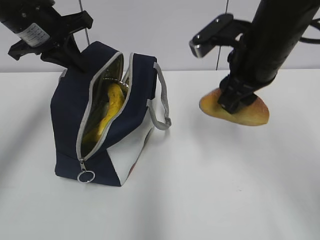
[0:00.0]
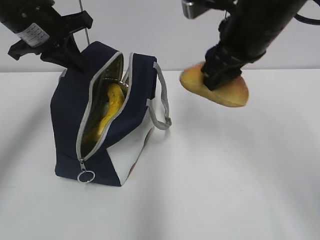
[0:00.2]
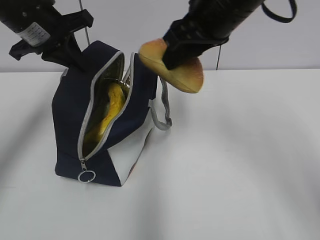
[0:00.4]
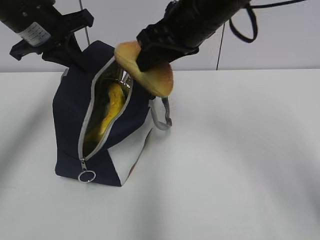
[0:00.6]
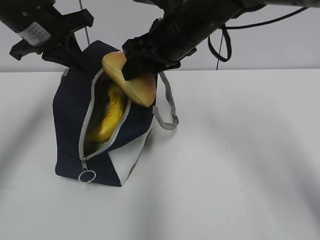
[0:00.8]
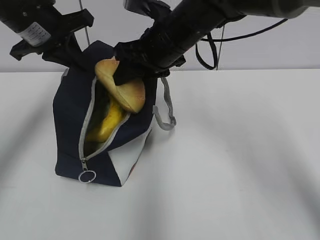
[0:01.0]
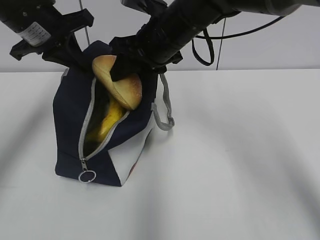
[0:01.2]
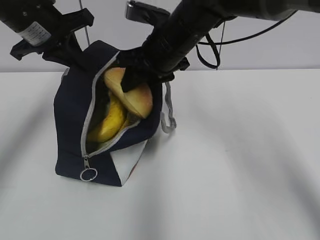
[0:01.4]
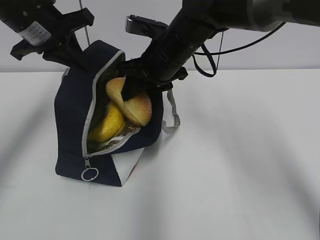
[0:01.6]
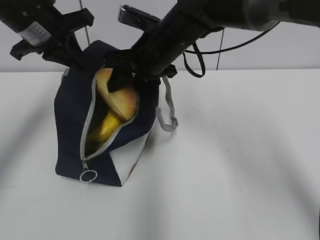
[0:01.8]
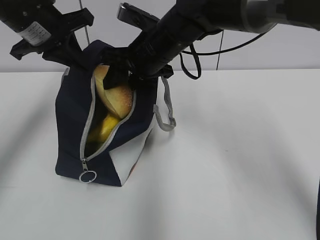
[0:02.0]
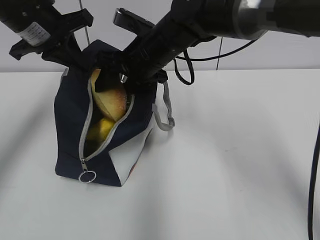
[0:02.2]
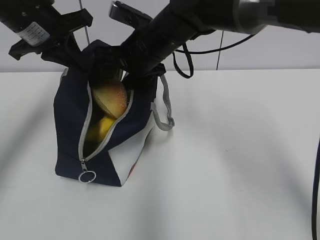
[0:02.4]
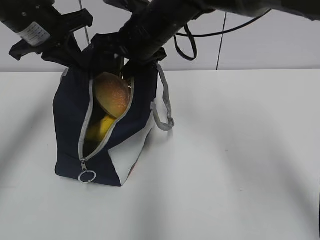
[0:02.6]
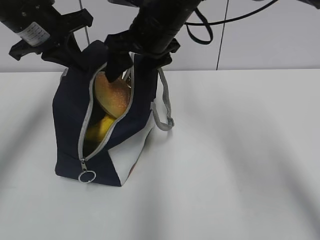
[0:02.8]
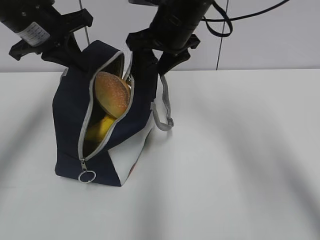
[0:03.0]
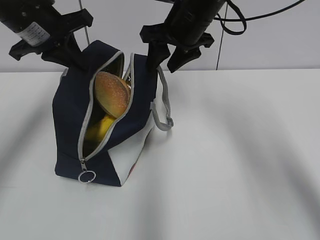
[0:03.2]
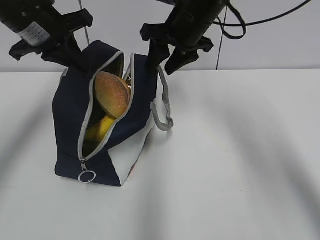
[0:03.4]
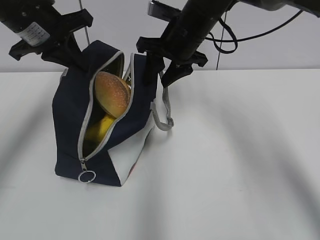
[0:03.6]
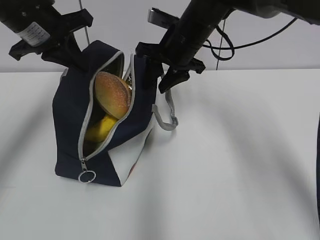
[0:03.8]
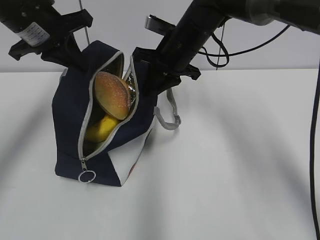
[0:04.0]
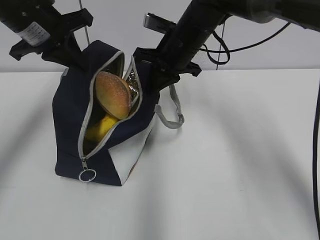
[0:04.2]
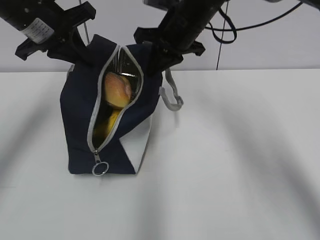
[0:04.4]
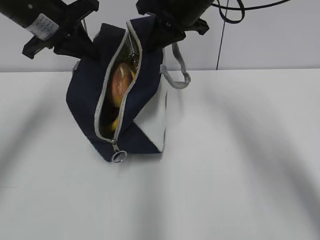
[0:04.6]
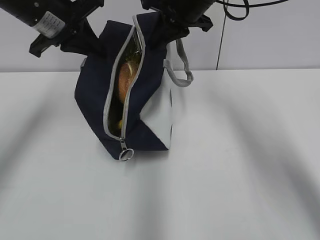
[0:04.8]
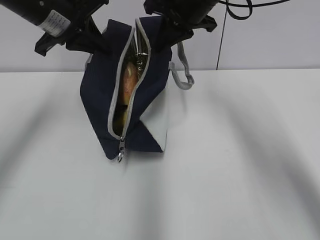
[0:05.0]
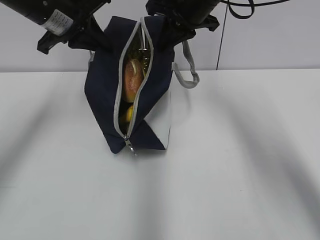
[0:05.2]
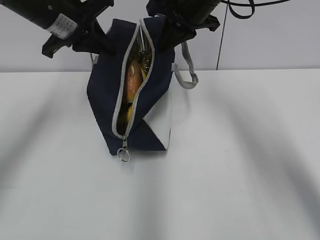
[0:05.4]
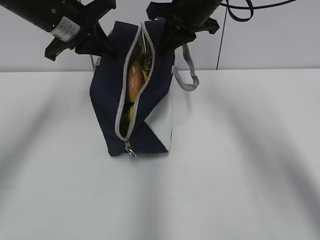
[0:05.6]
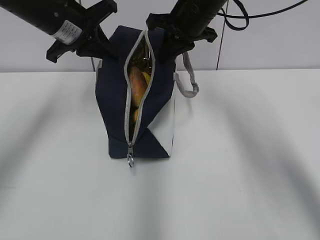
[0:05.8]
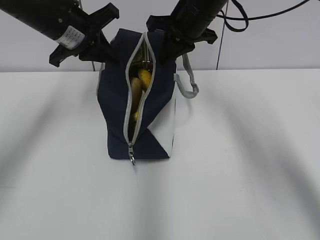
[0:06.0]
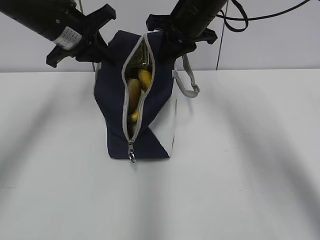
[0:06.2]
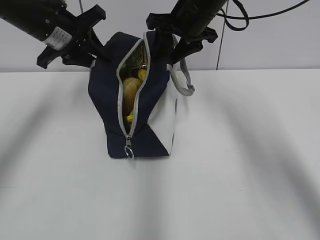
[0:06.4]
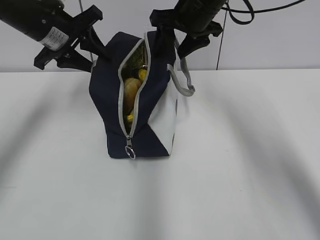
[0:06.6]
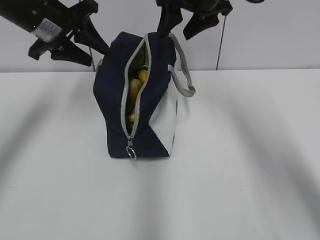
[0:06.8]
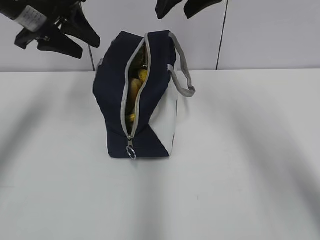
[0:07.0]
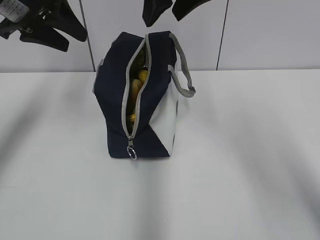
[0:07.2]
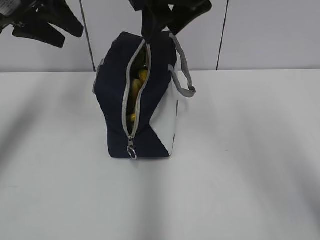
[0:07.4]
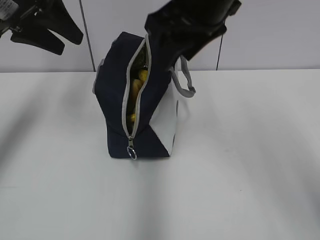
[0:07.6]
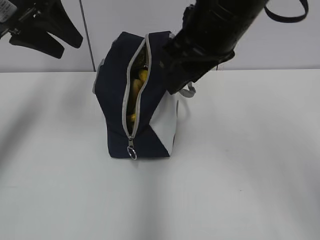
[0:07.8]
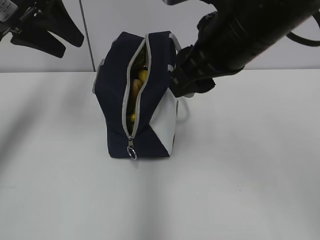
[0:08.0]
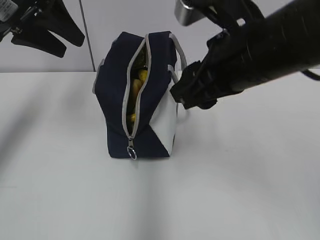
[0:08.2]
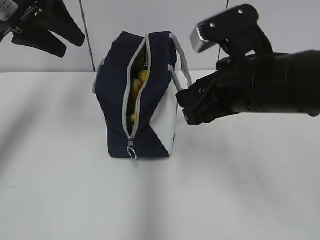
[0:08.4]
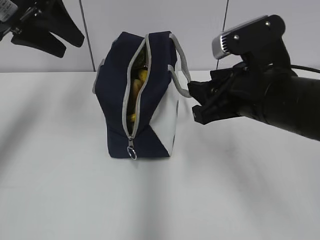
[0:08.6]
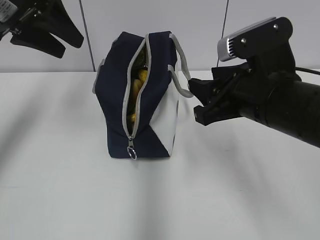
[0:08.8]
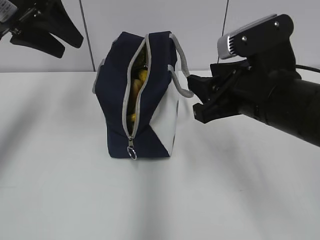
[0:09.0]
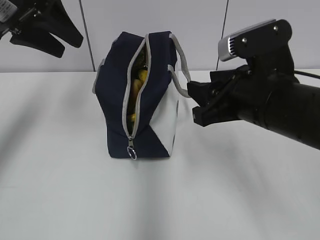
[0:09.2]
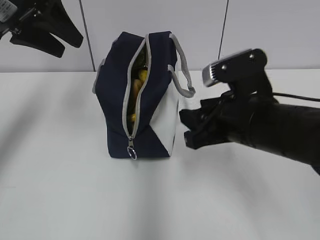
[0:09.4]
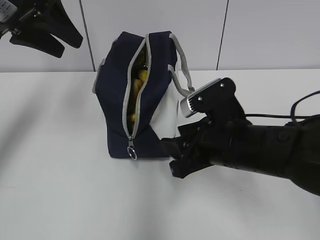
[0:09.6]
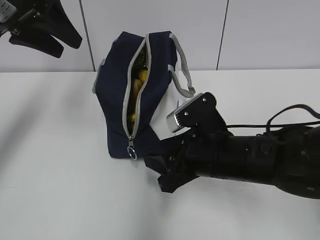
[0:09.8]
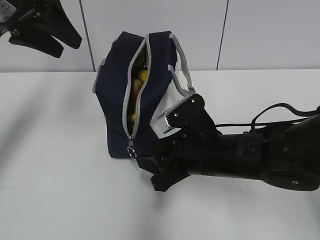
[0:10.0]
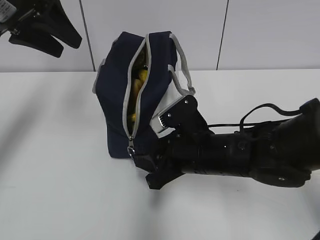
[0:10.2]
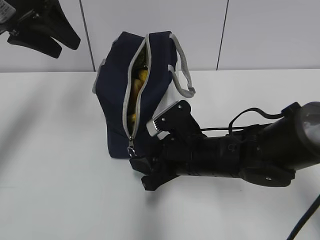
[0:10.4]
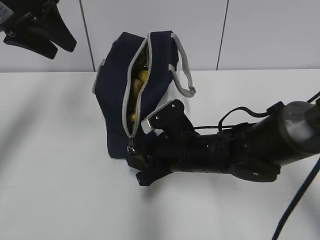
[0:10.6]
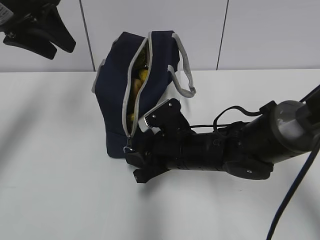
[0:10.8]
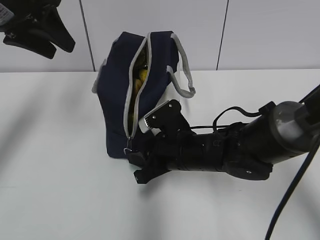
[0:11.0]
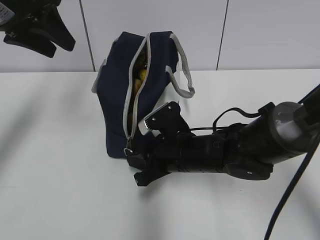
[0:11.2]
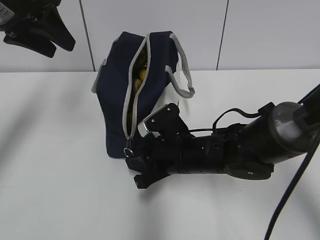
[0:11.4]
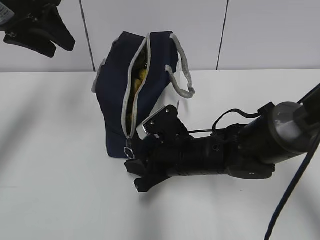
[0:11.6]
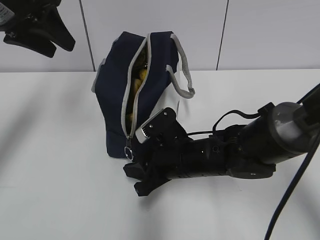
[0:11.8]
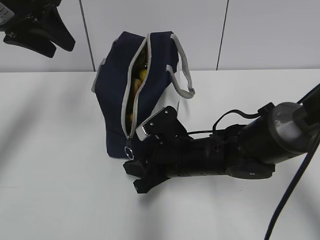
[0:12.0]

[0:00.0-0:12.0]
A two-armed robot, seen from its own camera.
0:00.0 to 0:01.6: The right gripper goes approximately 15 cm to the left and forward.
0:01.6 to 0:03.0: The right gripper moves upward, approximately 5 cm.
0:03.0 to 0:04.4: The right gripper closes up.
0:06.0 to 0:07.6: The right gripper travels backward and upward by about 15 cm, and opens. The left gripper goes approximately 10 cm upward, backward and to the left, and opens up.
0:07.6 to 0:09.0: The right gripper shifts roughly 15 cm downward, backward and to the right.
0:09.0 to 0:10.4: The right gripper goes approximately 15 cm downward and to the left.
0:10.4 to 0:12.0: The grippers make only small movements.

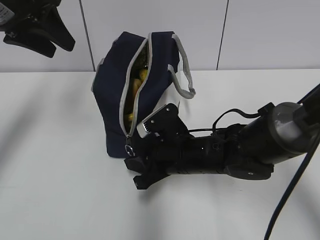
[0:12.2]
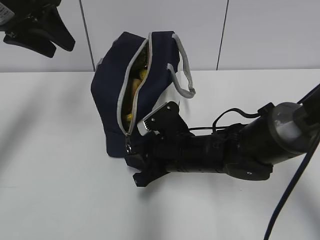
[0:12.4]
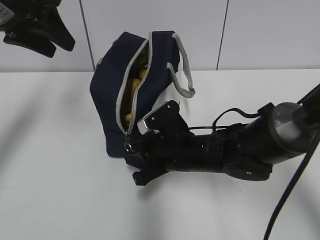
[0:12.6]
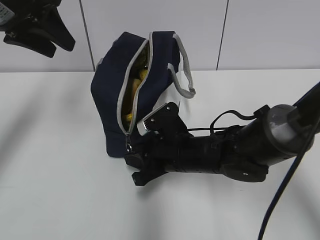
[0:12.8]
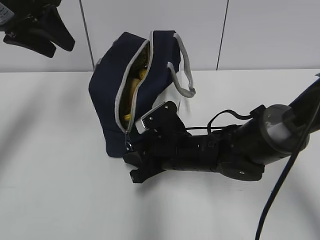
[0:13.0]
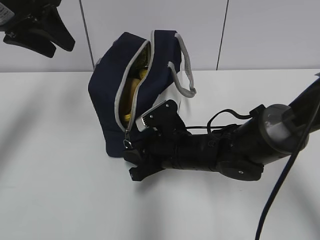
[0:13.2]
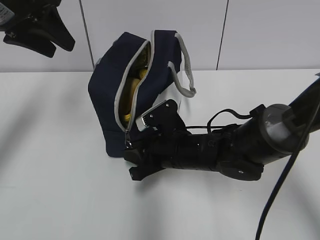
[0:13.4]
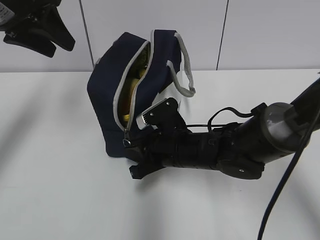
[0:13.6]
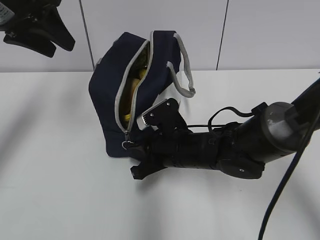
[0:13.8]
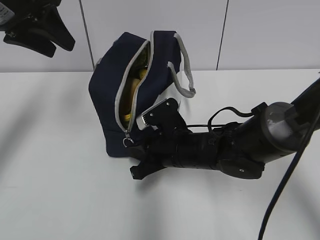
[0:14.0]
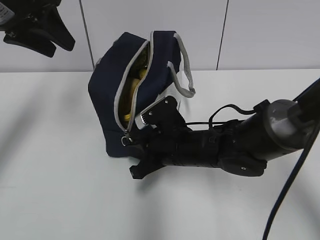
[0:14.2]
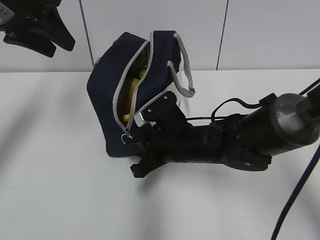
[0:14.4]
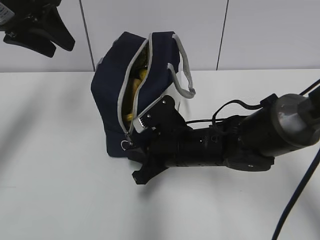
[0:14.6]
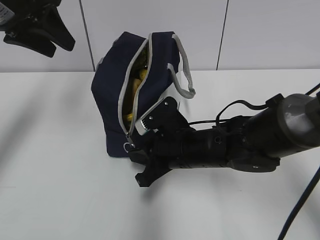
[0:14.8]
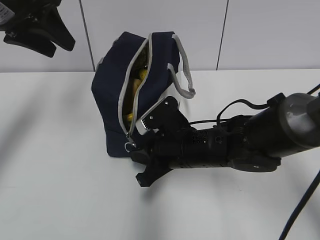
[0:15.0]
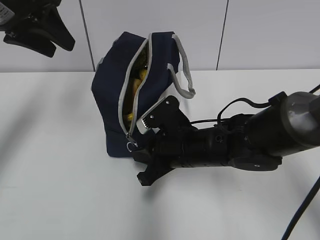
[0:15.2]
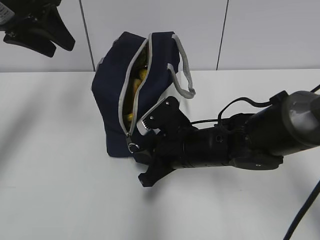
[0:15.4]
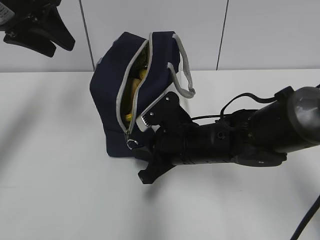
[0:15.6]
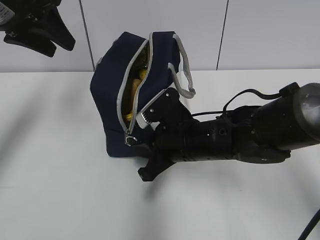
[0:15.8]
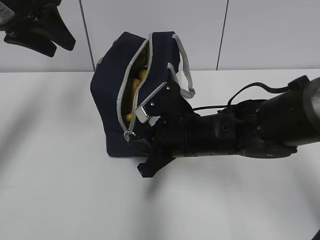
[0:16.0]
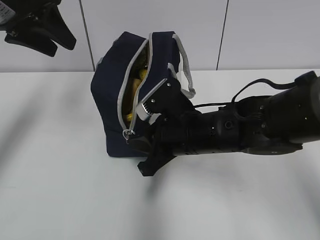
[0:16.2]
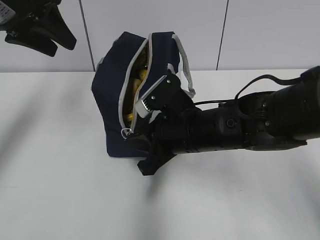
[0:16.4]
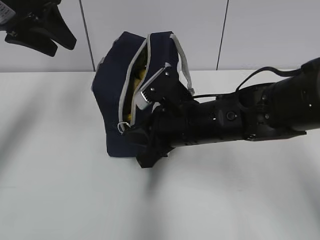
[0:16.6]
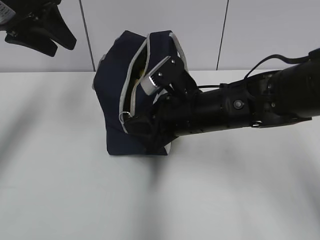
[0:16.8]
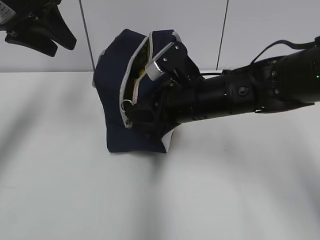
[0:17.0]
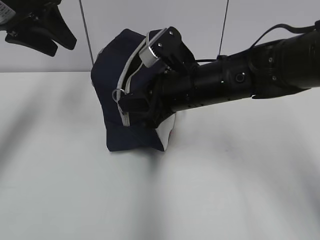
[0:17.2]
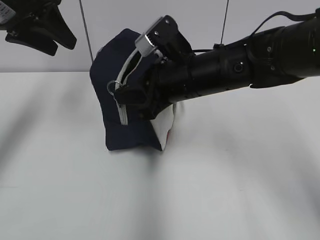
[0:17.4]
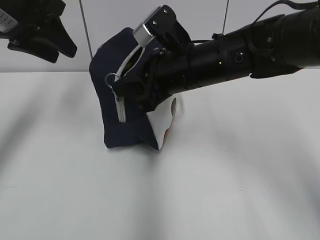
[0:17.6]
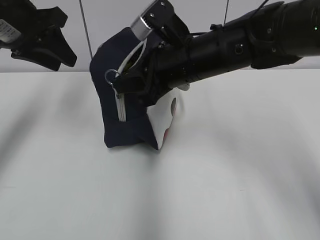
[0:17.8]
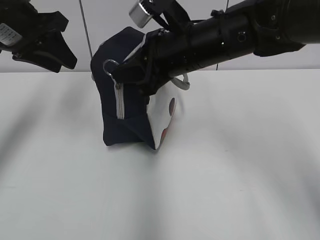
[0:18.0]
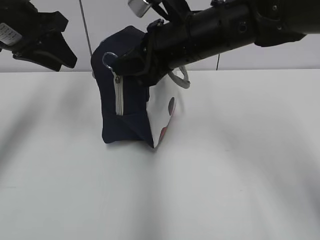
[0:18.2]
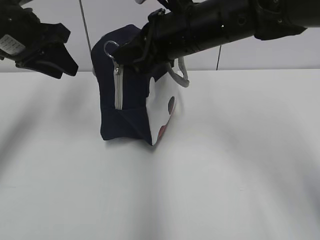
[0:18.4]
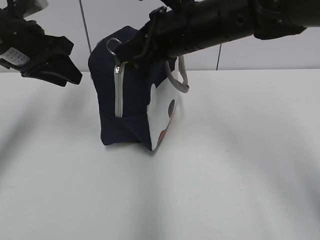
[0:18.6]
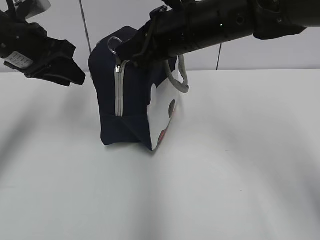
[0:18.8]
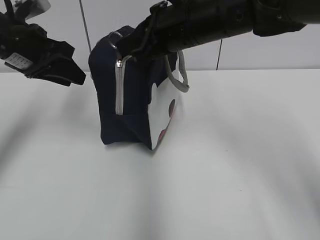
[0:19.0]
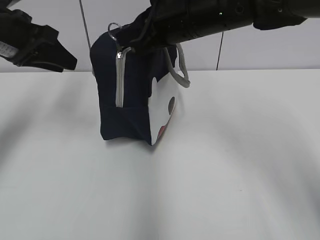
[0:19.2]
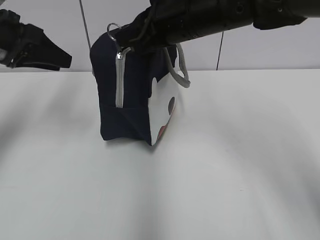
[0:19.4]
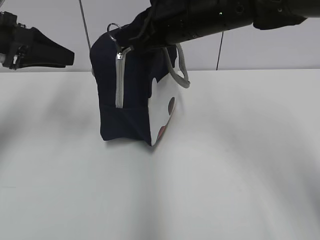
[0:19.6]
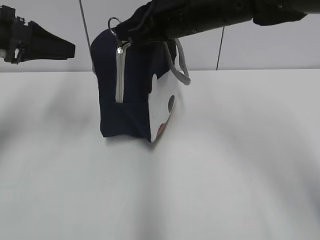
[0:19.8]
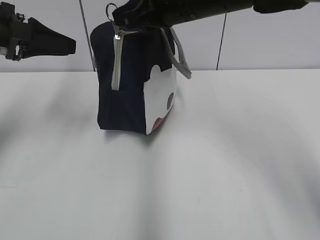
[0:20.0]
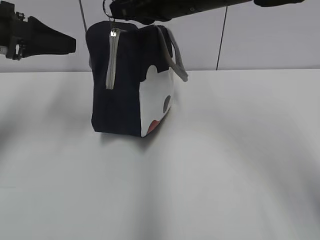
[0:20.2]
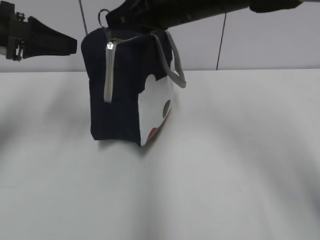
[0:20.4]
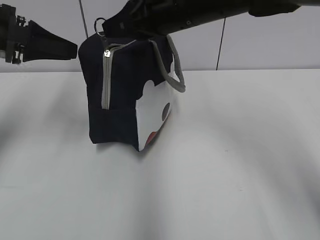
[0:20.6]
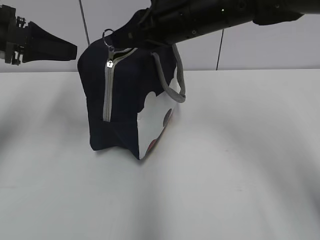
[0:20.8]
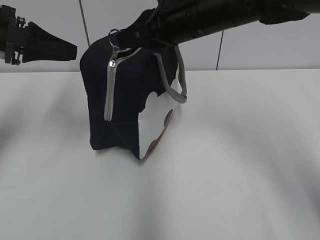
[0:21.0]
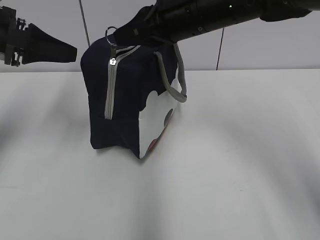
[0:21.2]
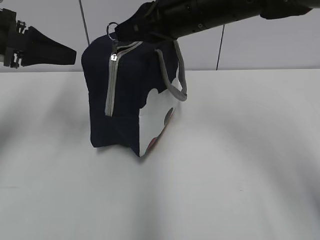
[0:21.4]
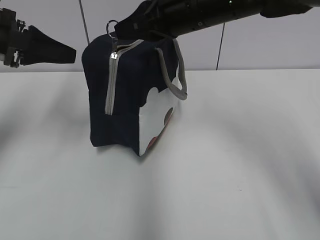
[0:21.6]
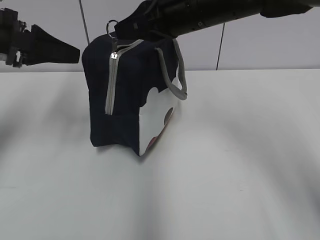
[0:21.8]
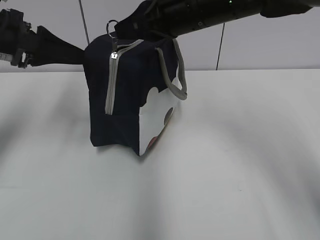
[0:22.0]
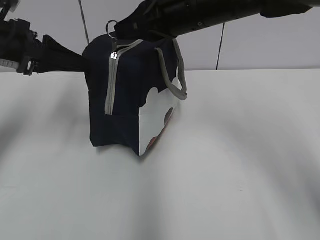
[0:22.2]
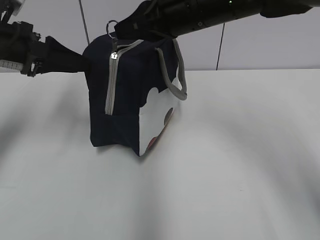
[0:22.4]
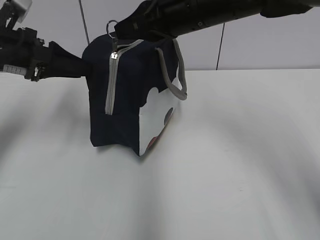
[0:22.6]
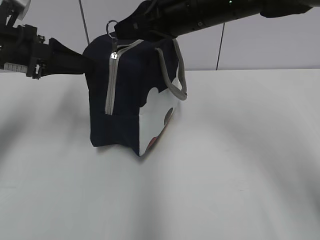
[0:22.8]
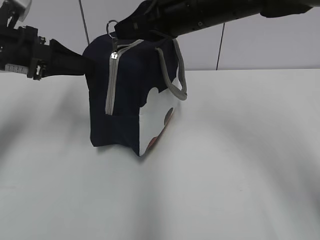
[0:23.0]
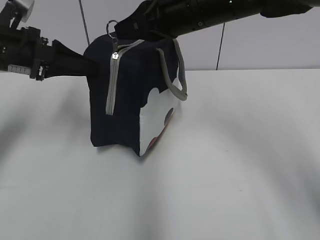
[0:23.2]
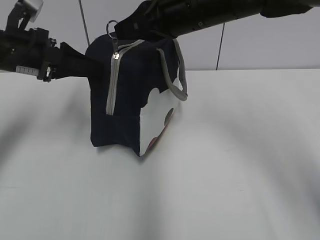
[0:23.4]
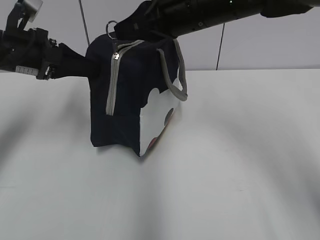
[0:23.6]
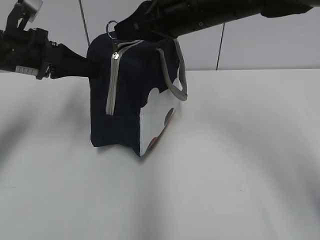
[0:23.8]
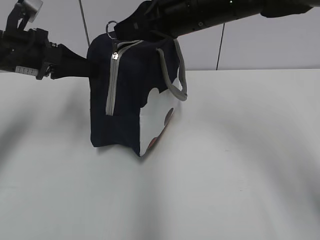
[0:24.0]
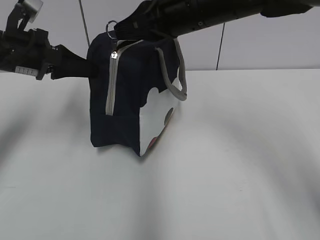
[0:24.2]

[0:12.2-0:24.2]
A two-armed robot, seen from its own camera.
0:12.2 to 0:13.8: The two grippers keep their place.
0:13.8 to 0:15.2: The grippers make only small movements.
0:15.2 to 0:16.6: The right gripper travels upward by about 5 cm.
0:16.6 to 0:18.2: The right gripper shifts about 10 cm upward and forward.
0:19.8 to 0:22.6: The grippers move only a little.
0:22.6 to 0:24.2: The left gripper closes.
